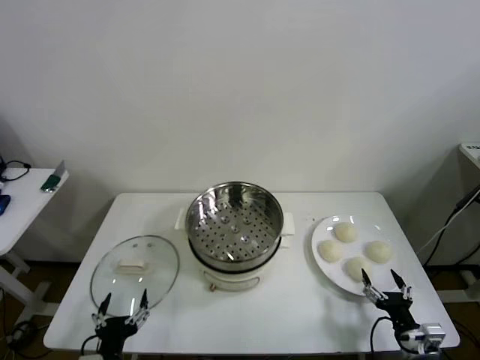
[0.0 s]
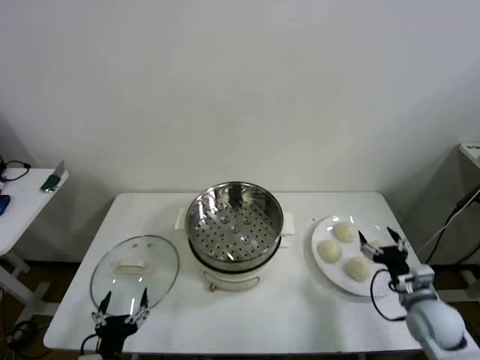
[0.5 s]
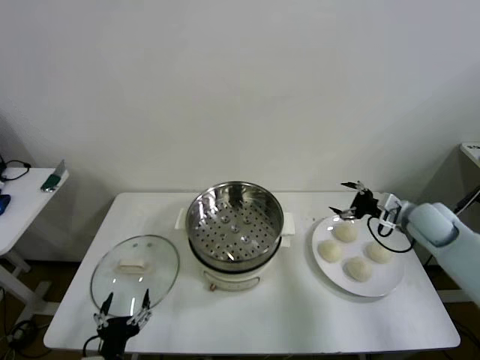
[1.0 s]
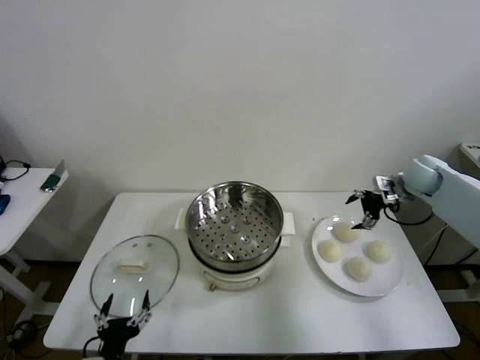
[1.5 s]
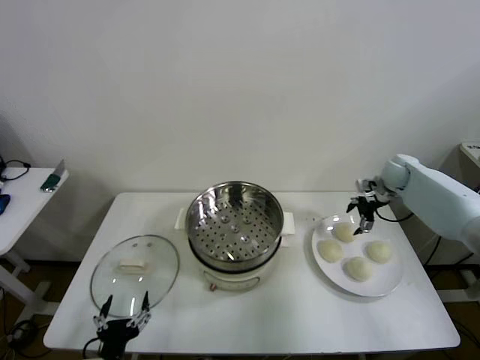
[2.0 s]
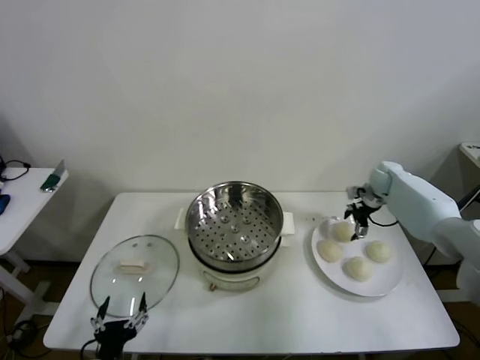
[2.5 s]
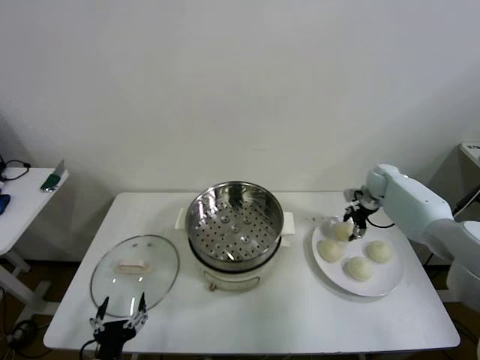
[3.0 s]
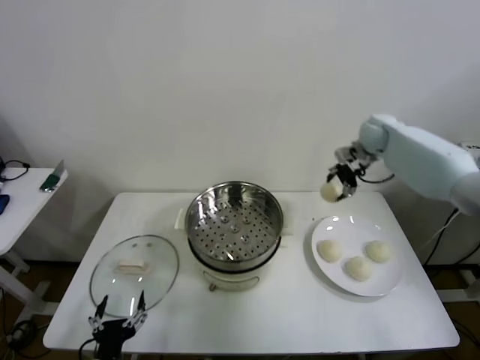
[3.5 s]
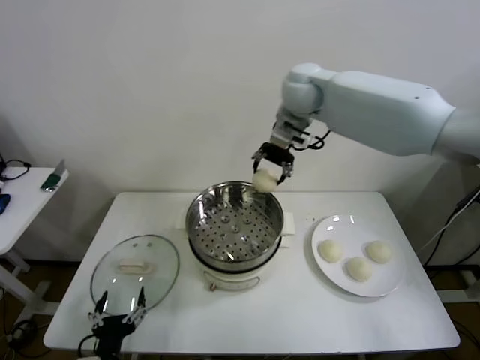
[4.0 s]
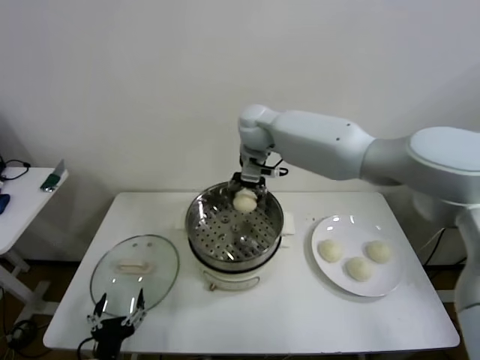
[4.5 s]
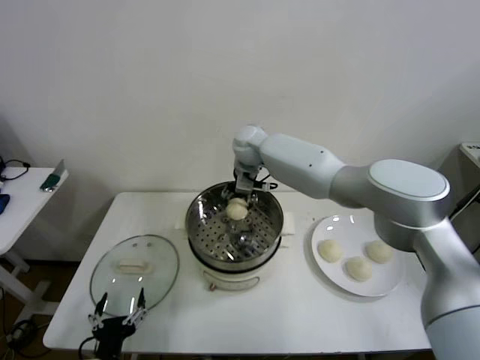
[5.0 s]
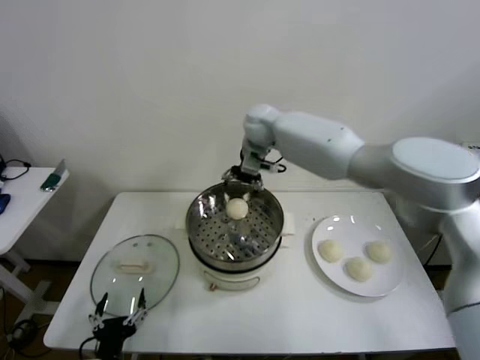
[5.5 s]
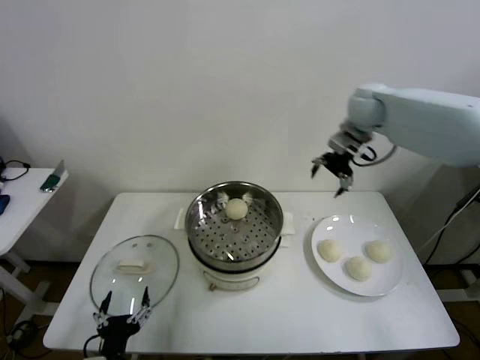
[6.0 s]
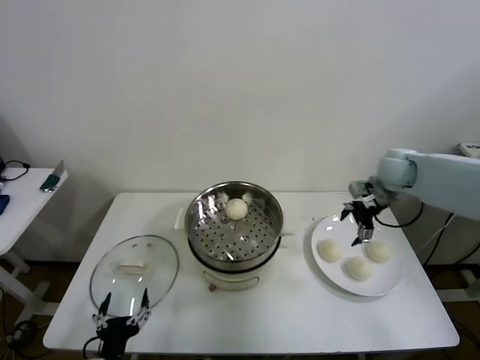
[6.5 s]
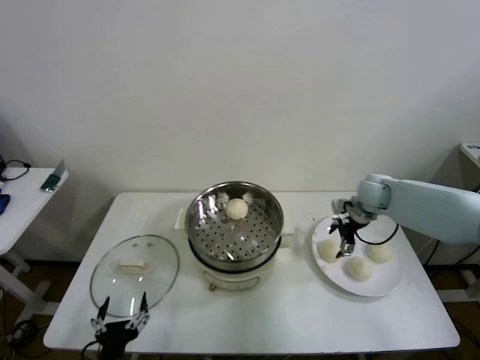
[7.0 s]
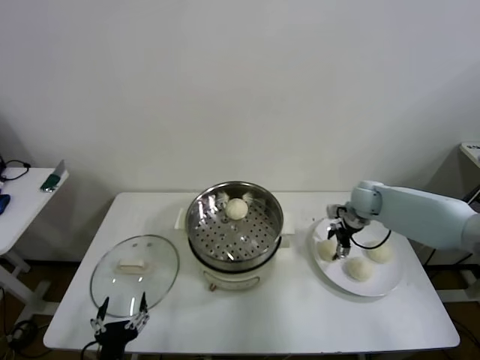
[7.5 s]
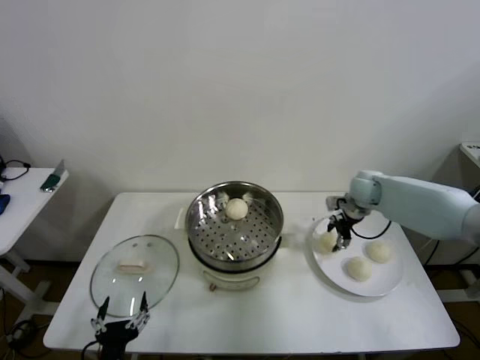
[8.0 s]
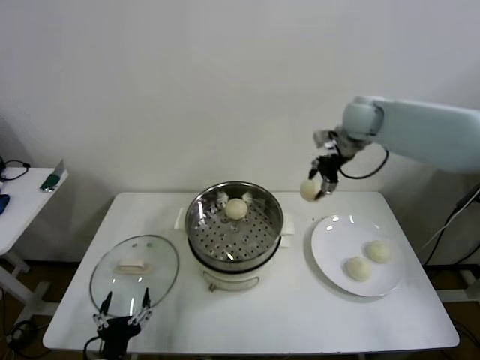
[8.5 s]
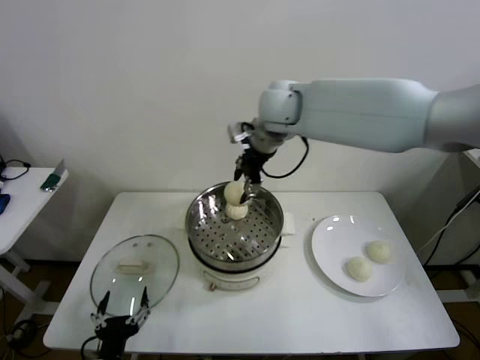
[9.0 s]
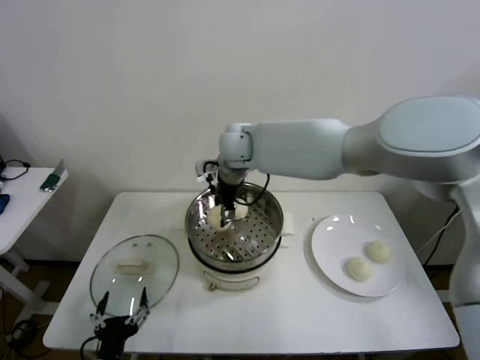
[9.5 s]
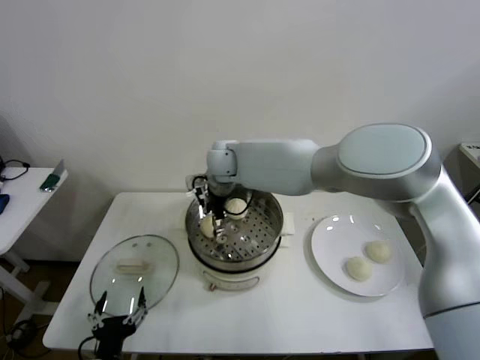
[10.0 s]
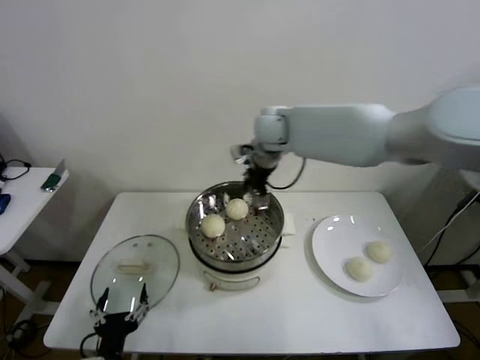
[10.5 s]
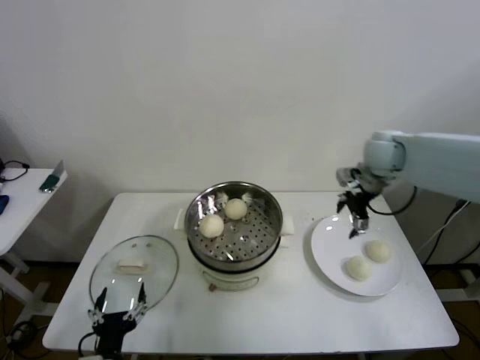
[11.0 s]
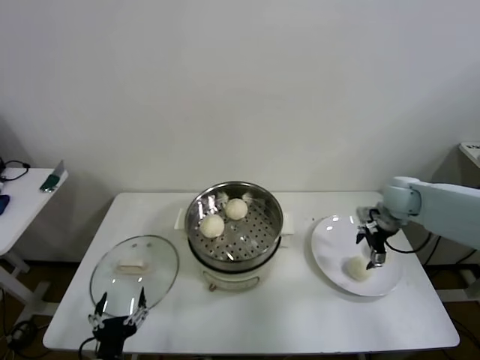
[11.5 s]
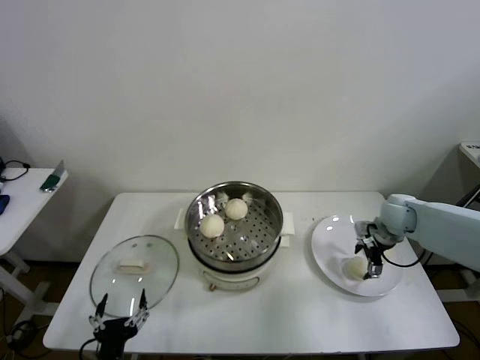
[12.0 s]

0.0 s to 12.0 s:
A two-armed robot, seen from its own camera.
Step, 0.0 to 2.5 s: Grasp the baozi in the plate with right gripper.
Step, 3.5 to 5.0 s: Place the baozi on the steamer with right gripper.
Step, 5.5 to 7.5 s: Grasp the baozi in the plate with right gripper.
Step, 8.0 to 9.5 s: Place the baozi on the steamer with right gripper.
2.0 to 4.0 s: The right gripper goes about 40 cm to the left and upward, and closes its fingers.
4.0 to 6.0 s: The right gripper travels to the right by about 20 cm, and opens its fingers.
6.0 to 8.0 s: The right gripper travels downward by about 15 cm, and closes its fingers.
8.0 to 10.0 s: The right gripper is displaced to the left by about 35 cm, and opens its fingers.
10.0 to 12.0 s: The right gripper is displaced to the right by approximately 40 cm.

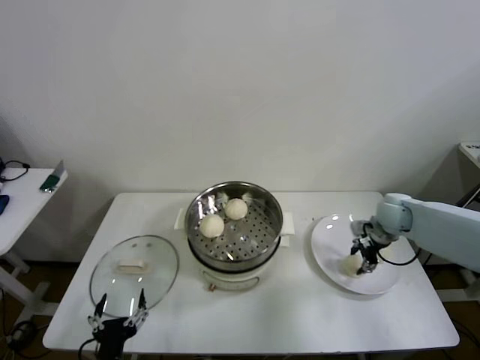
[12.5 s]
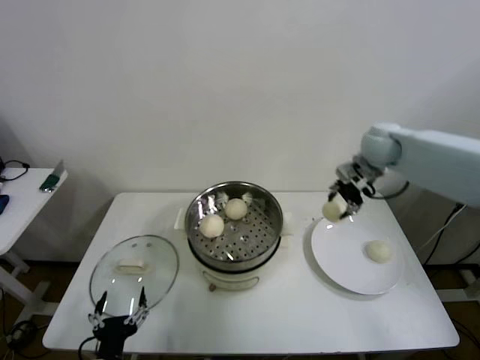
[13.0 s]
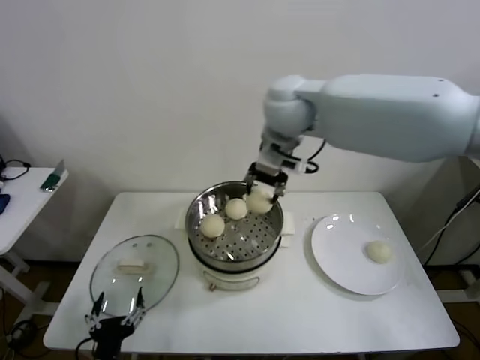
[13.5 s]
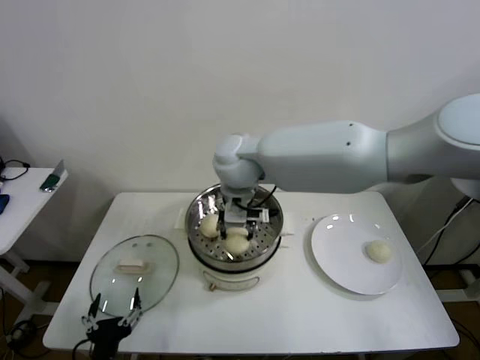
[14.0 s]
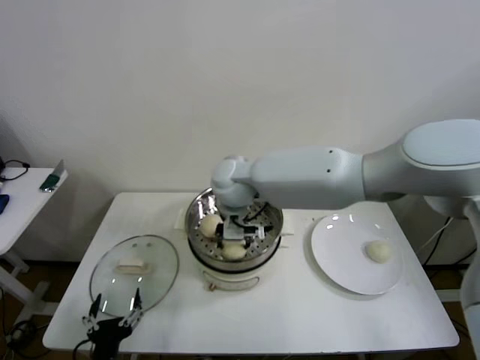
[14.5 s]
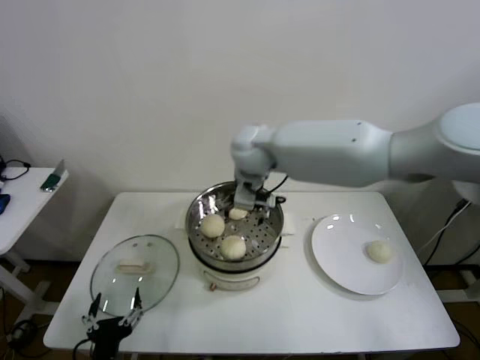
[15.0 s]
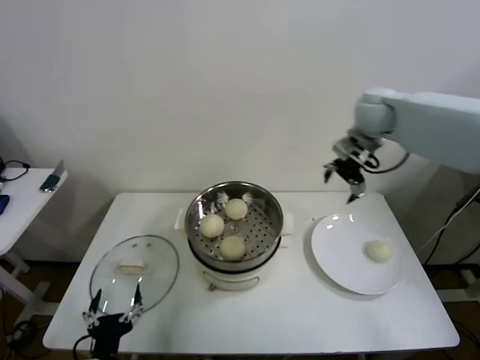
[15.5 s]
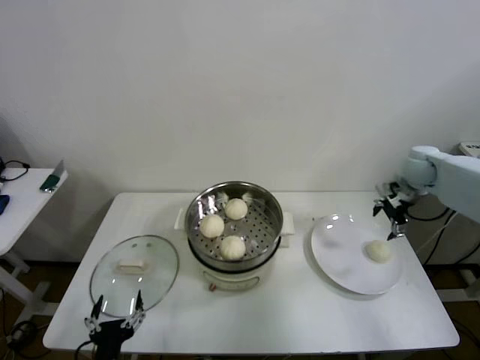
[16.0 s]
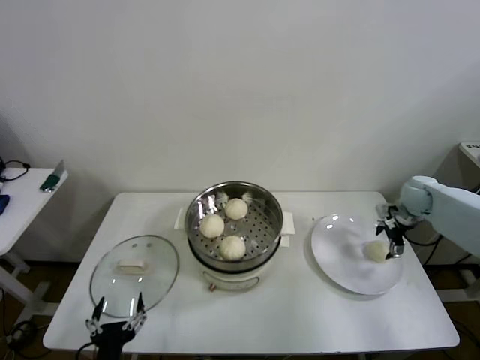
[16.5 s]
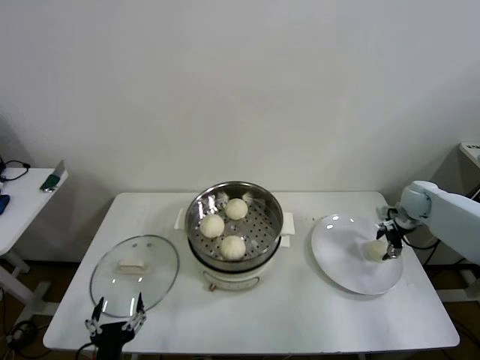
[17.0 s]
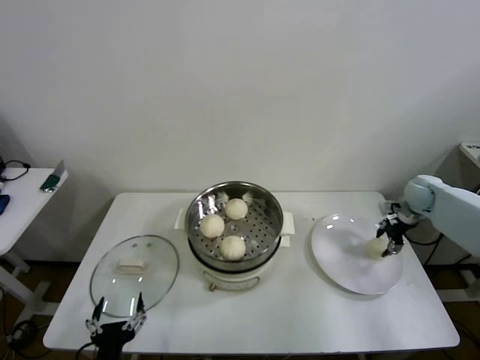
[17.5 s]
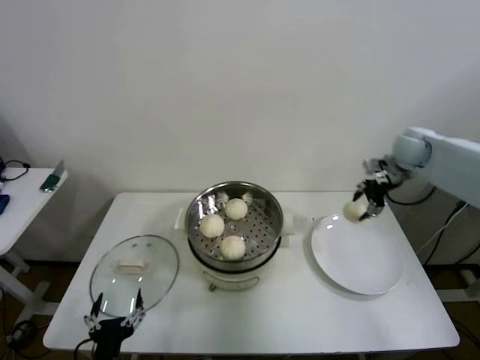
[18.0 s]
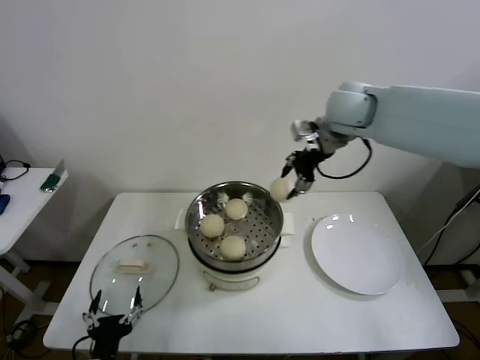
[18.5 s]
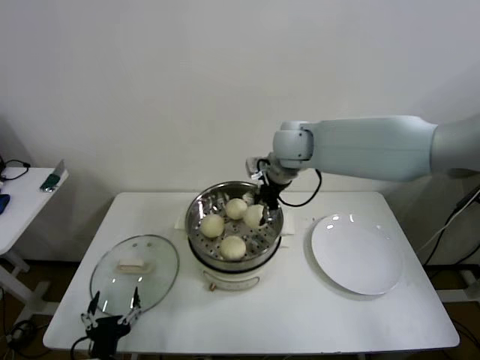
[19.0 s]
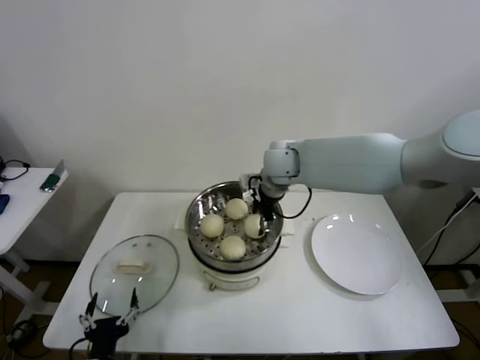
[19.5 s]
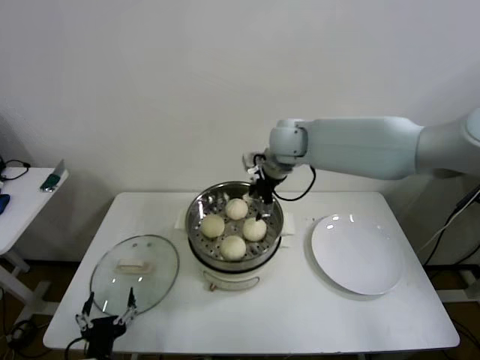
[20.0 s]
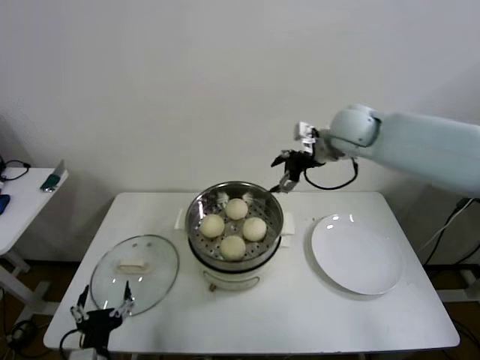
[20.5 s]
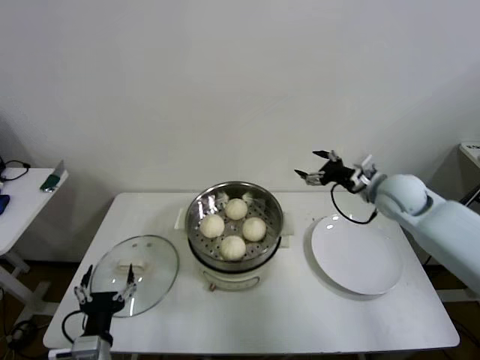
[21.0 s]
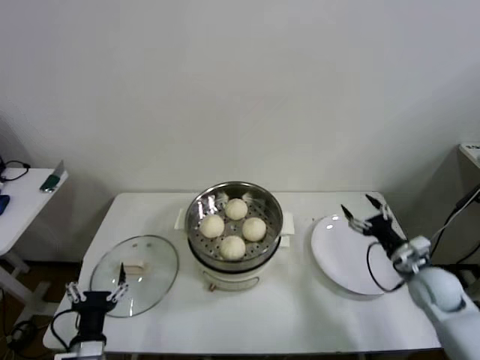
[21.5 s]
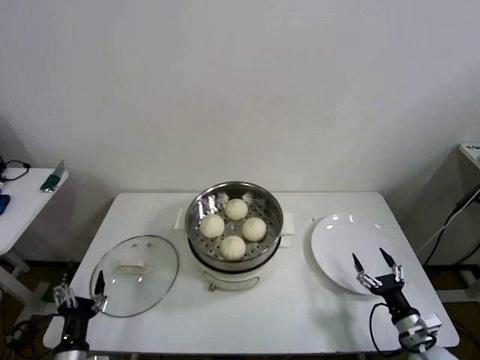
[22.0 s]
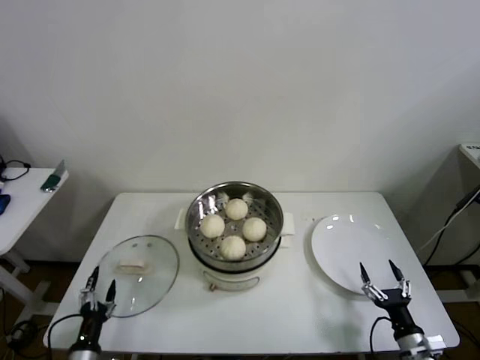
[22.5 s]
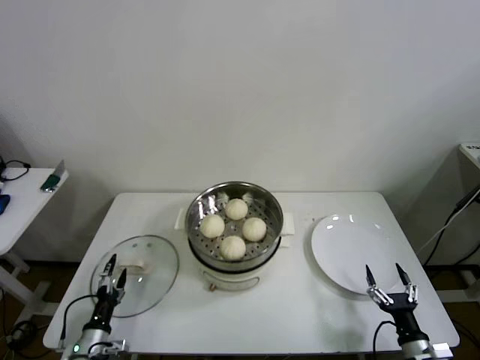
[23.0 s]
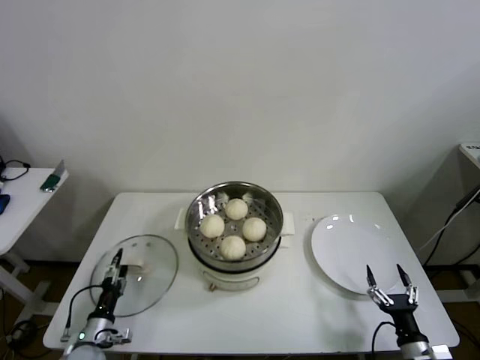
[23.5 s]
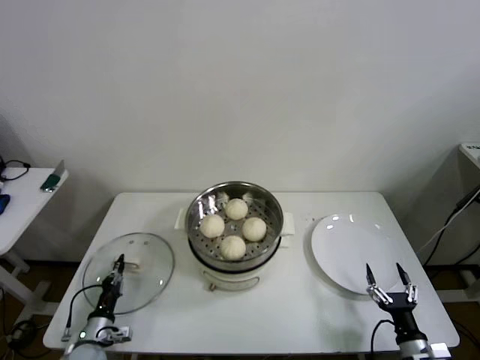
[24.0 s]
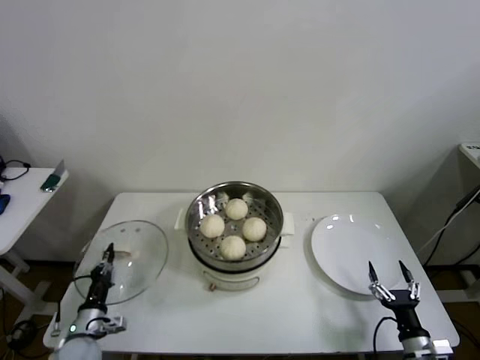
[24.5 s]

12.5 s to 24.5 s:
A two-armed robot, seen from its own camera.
Step, 12.5 to 14.5 s: Place the baozi on the steamer with right gripper.
Step, 15.0 to 17.0 s: Grasp the baozi in the plate with right gripper.
Step, 17.5 to 19.0 s: Place the baozi on the steamer with right gripper.
Step, 20.0 to 23.5 s: Grasp the pot lid with left gripper.
12.5 to 14.5 s: The right gripper shifts roughly 40 cm to the left, and opens its fingers.
14.5 to 16.5 s: The right gripper goes some 50 cm to the right, and opens its fingers.
16.5 to 18.5 s: The right gripper heads to the left and upward, covering approximately 35 cm, and closes up.
18.5 to 20.5 s: The right gripper is displaced downward by some 5 cm, reaches roughly 10 cm to the left, then returns, and opens its fingers.
20.5 to 22.5 s: The left gripper shifts some 15 cm downward and to the left, while the right gripper shifts some 60 cm downward, backward and to the right.
22.5 to 24.5 s: The left gripper moves forward, approximately 10 cm, and closes its fingers.

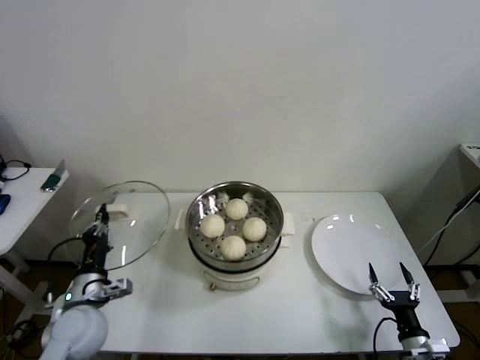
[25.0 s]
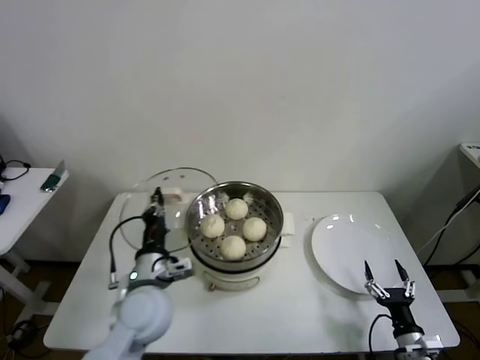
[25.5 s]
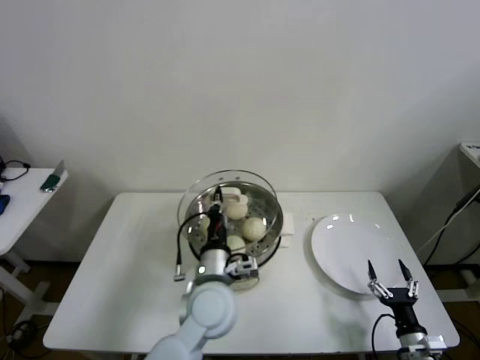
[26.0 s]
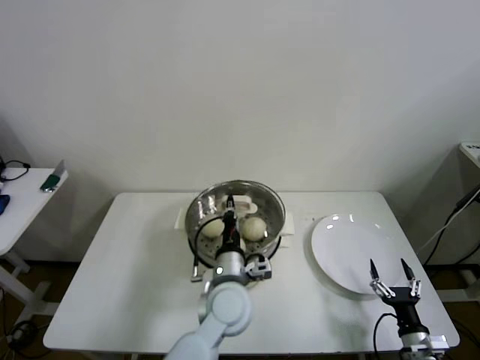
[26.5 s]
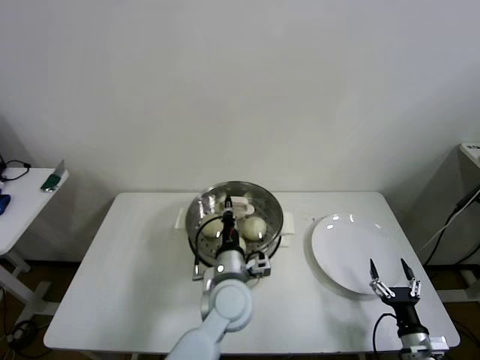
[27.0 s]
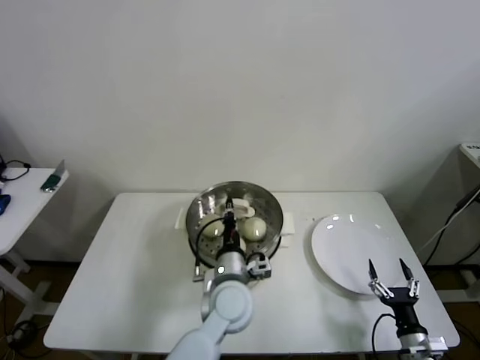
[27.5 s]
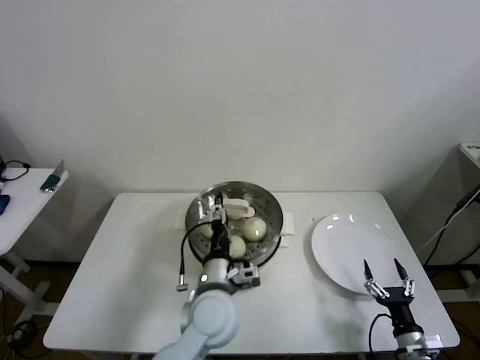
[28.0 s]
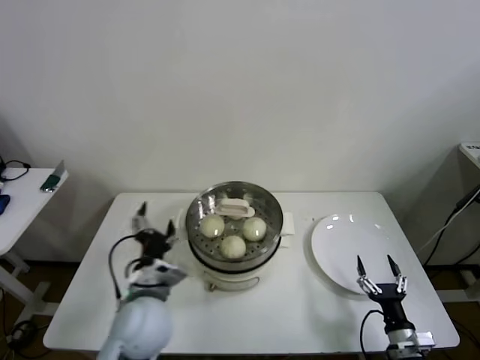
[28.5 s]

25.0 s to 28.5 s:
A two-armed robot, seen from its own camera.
Step, 25.0 to 27.5 s: Place the pot lid on the steamer with left gripper.
25.0 to 27.0 s: The left gripper is displaced to the right by roughly 30 cm.
27.0 to 28.5 s: The left gripper is displaced to the left and backward by approximately 15 cm, and opens.
